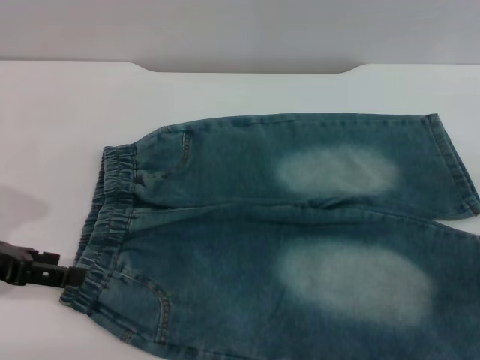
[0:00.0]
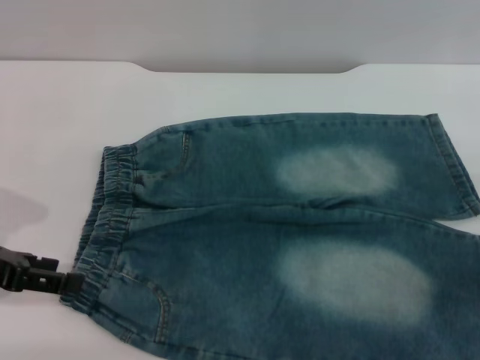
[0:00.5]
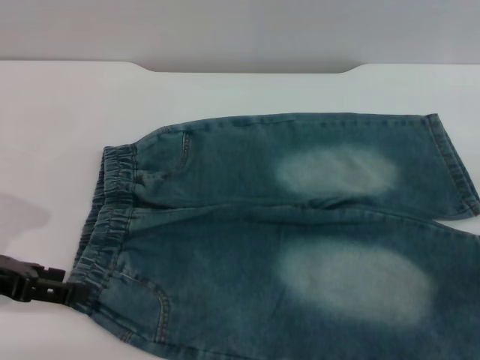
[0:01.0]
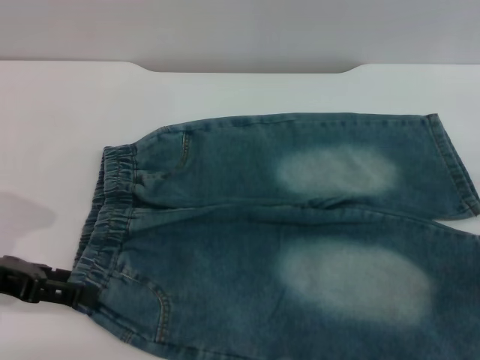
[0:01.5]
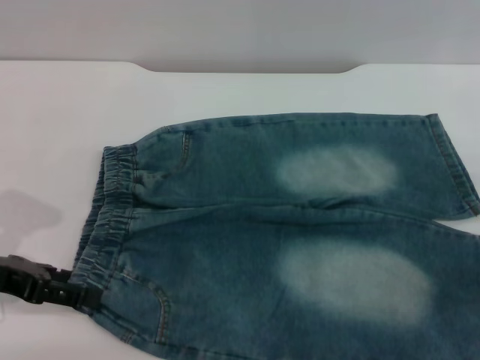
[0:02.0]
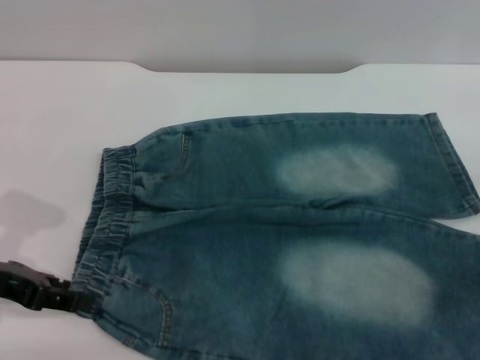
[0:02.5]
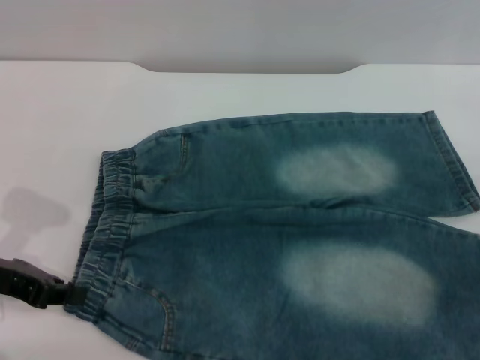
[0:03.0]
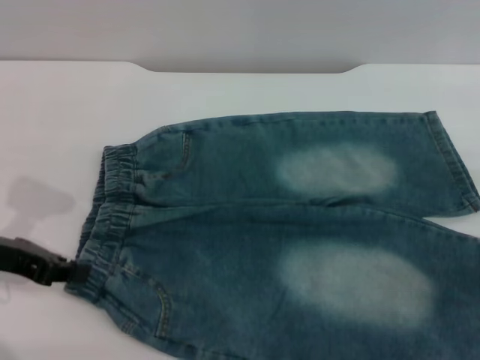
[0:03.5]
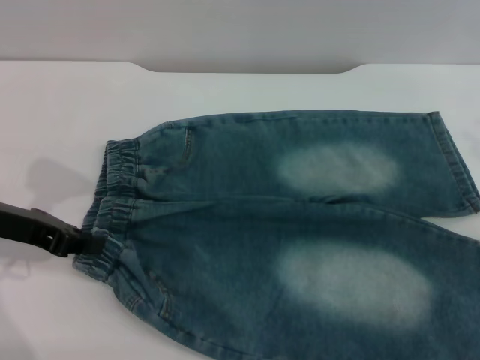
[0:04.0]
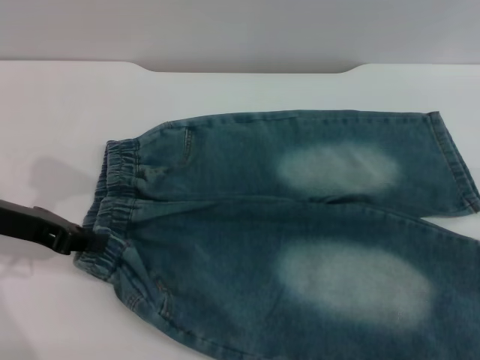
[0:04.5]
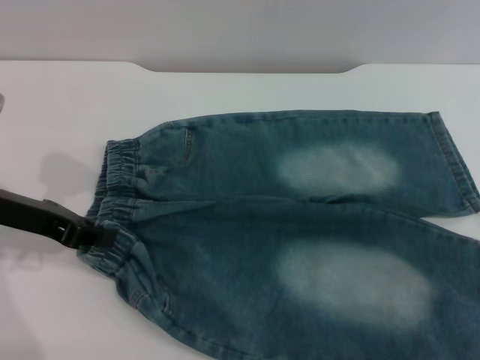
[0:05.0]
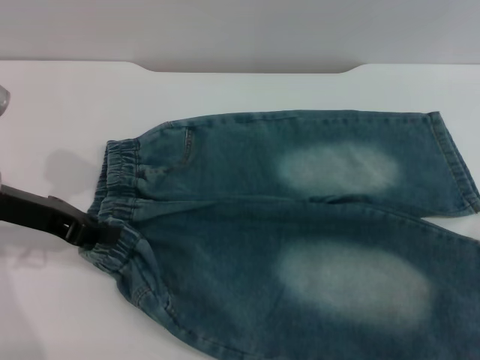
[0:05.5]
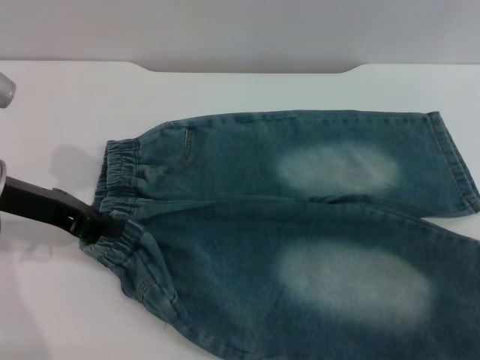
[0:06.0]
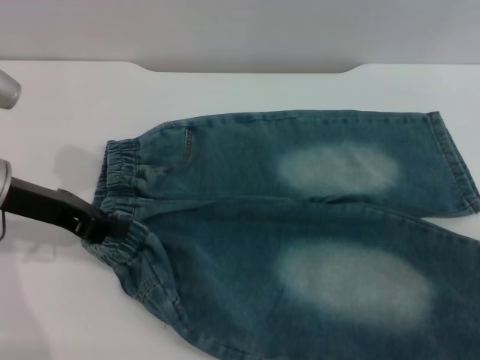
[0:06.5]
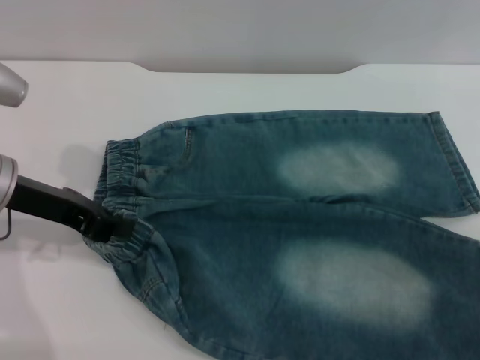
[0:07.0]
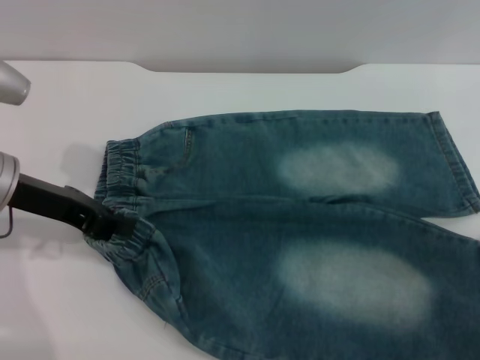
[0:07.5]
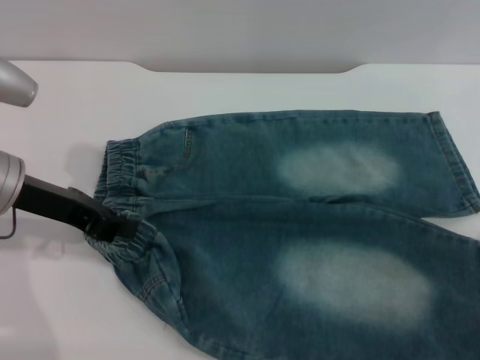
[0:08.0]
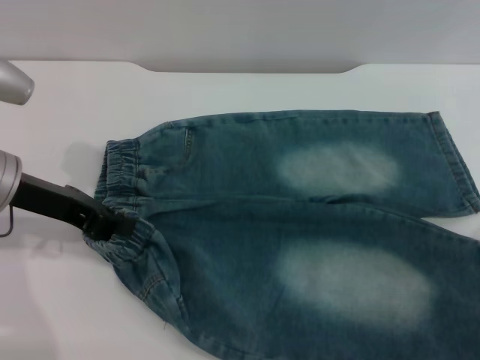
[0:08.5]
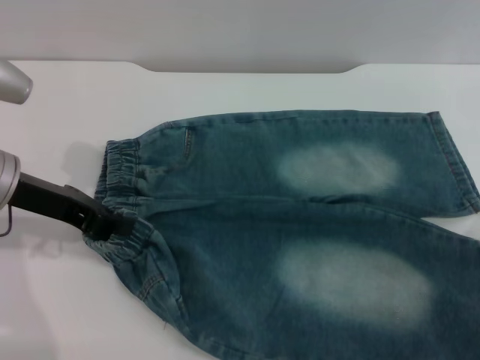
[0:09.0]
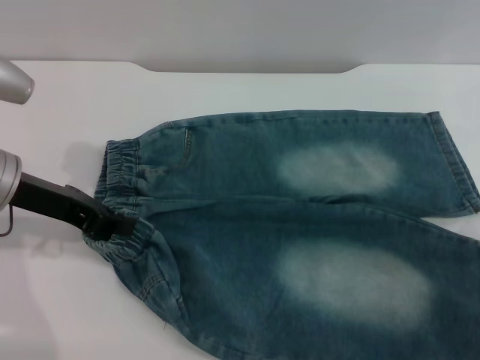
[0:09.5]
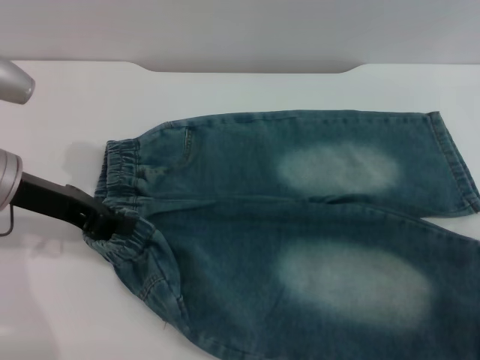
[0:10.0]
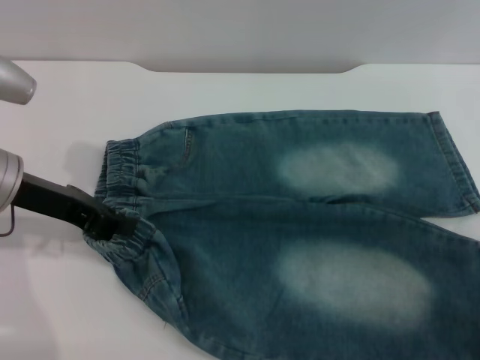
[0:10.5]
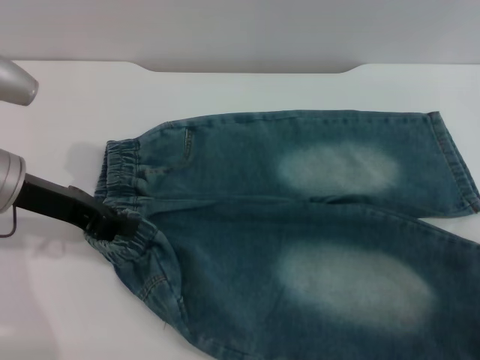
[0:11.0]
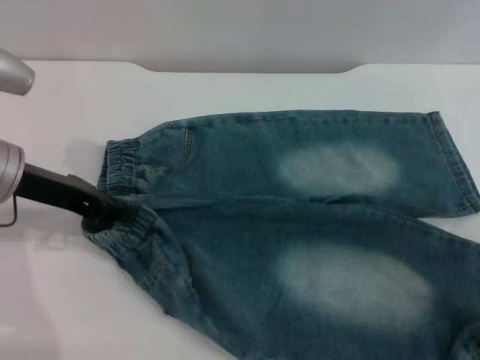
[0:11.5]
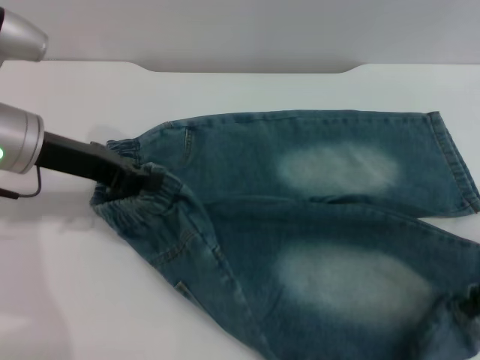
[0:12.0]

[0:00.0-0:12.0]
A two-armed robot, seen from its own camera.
0:00.0 to 0:02.0: The grippers make only small movements.
0:02.0 to 0:04.0: The right gripper moves upward, approximately 10 cm; the left gripper moves roughly 5 cm, and closes up.
0:06.0 to 0:10.0: The grippers make only small movements.
0:10.0 to 0:12.0: The right gripper closes.

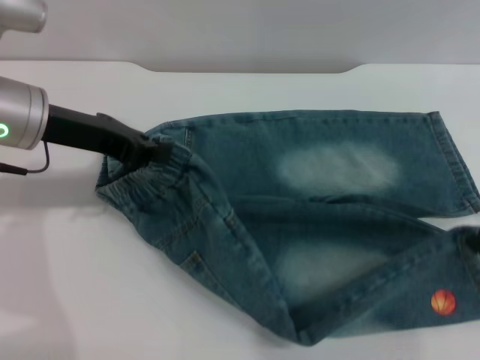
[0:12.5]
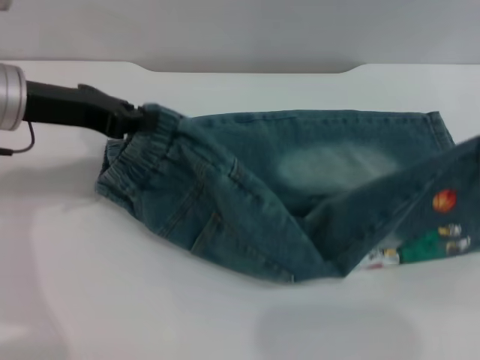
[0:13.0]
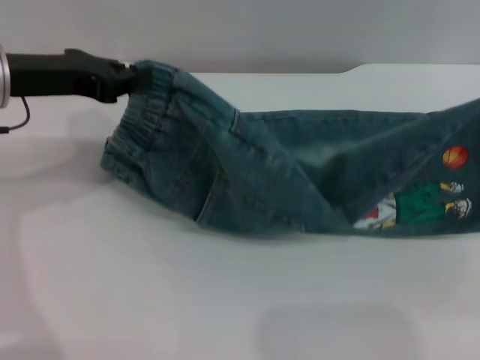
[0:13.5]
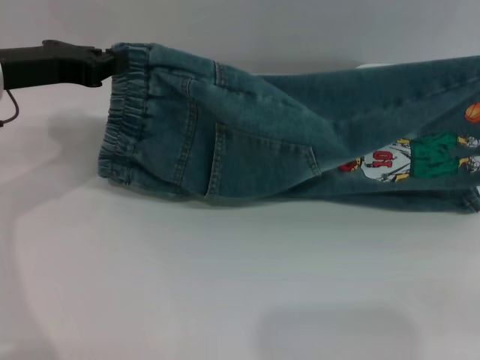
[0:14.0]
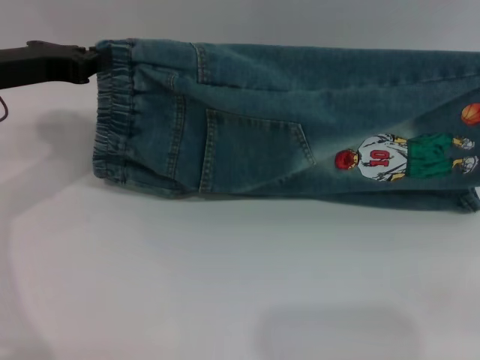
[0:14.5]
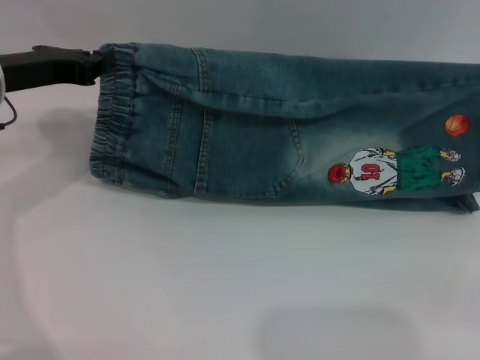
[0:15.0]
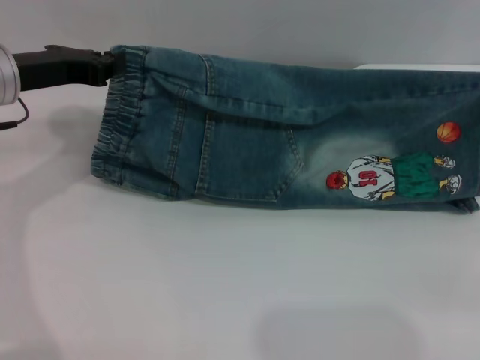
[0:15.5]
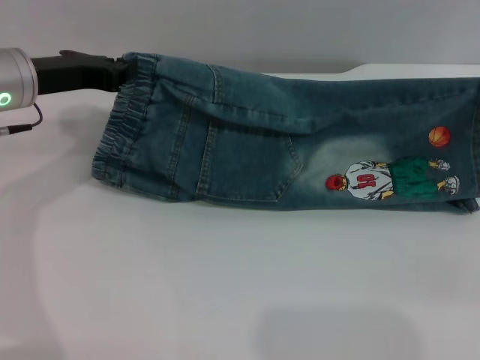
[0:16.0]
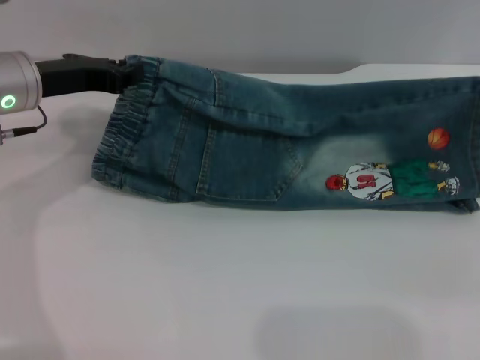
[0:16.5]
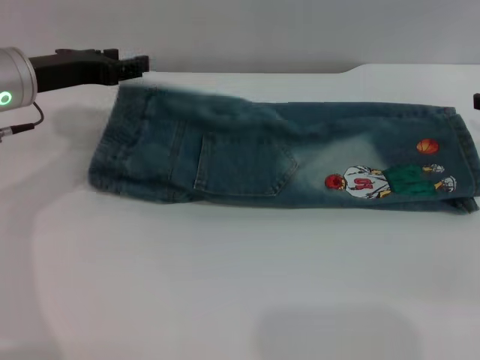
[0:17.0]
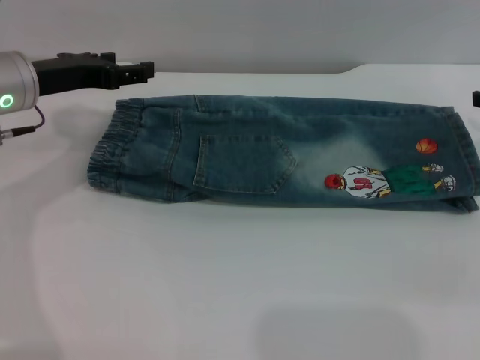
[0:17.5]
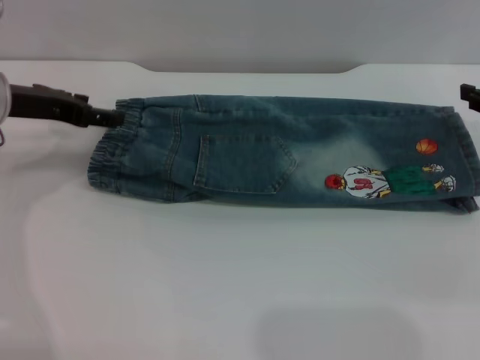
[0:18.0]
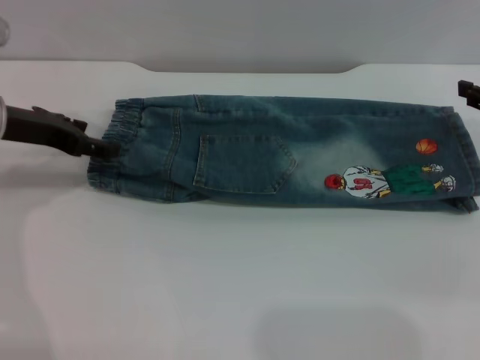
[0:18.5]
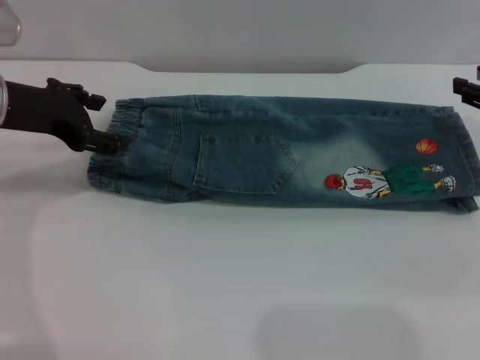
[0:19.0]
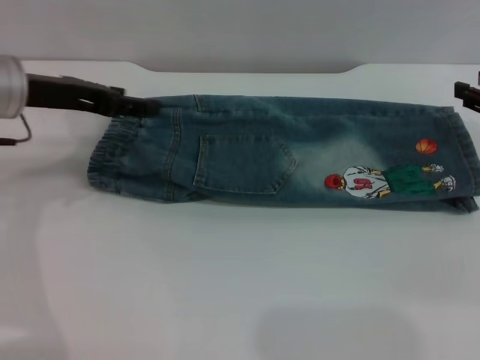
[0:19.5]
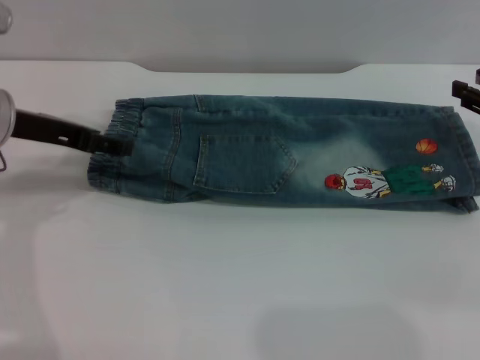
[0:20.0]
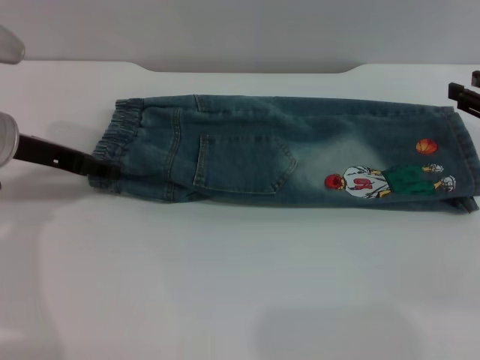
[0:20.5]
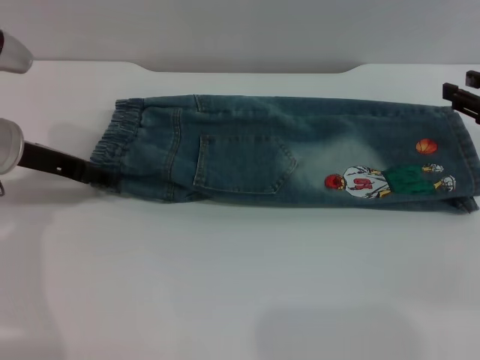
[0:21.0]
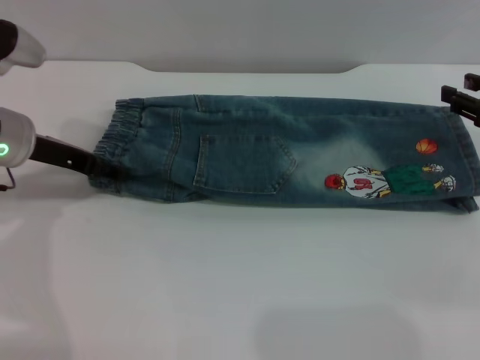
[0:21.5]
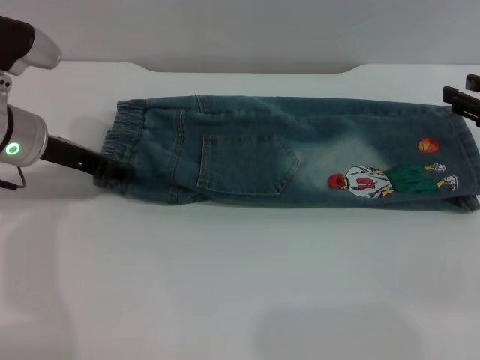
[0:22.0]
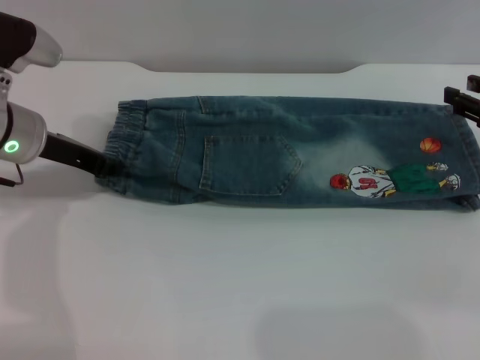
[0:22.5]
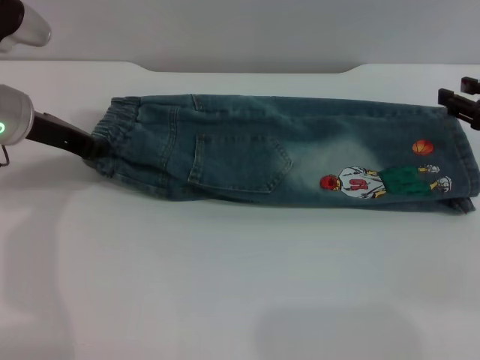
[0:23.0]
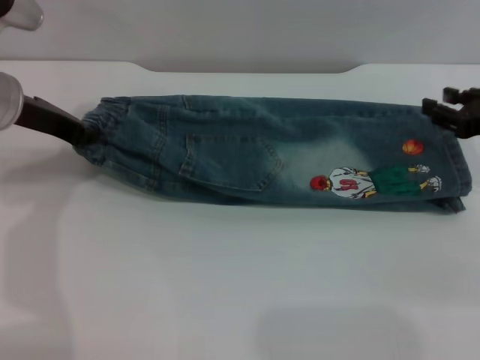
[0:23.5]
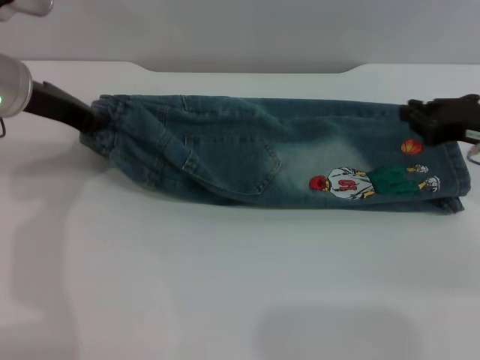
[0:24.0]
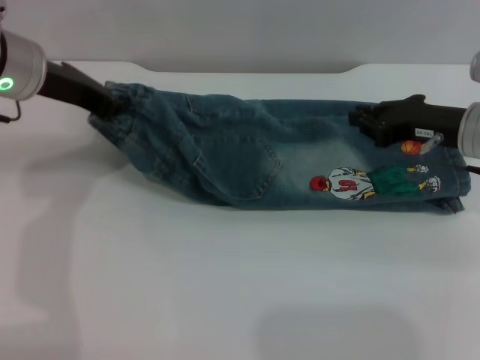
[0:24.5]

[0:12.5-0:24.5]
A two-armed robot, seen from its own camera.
Step, 0:12.5 to 0:17.0: Fold the bottom of the pants upward with both grippers.
0:12.5 to 0:14.5: The right gripper shifts some 5 cm to the right.
0:14.5 to 0:16.5: The right gripper travels downward and forward by some 10 cm.
0:16.5 to 0:18.5: The left gripper opens up. Meanwhile the right gripper opens up.
0:20.5 to 0:22.5: The left gripper closes up.
0:22.5 to 0:24.5: The right gripper moves to the left, approximately 10 cm, and closes; the left gripper moves upward, approximately 5 cm.

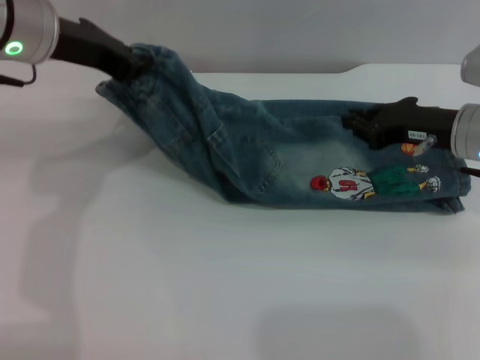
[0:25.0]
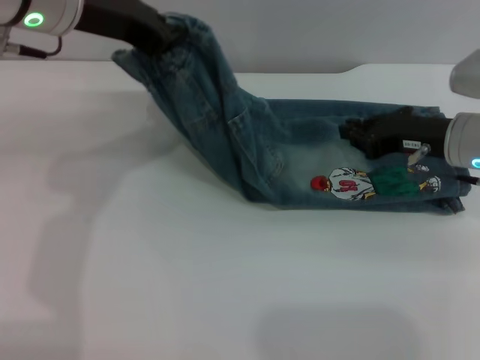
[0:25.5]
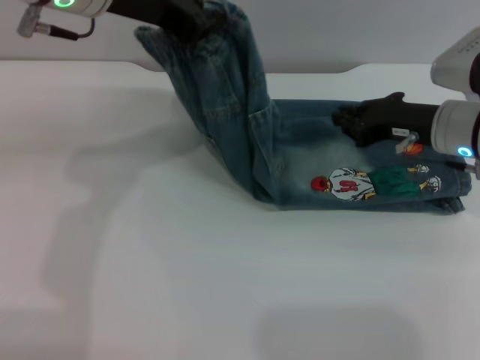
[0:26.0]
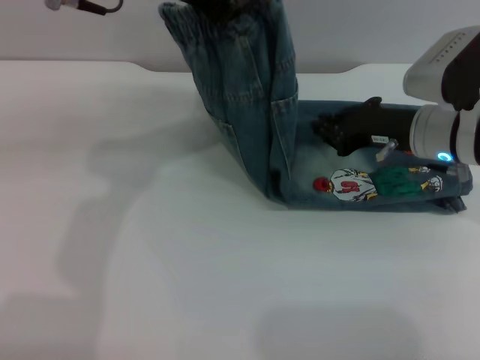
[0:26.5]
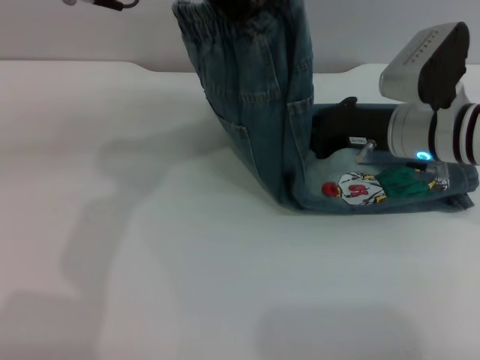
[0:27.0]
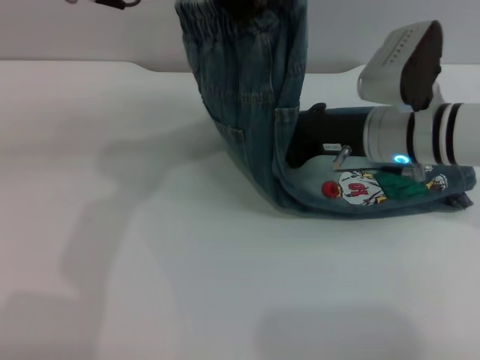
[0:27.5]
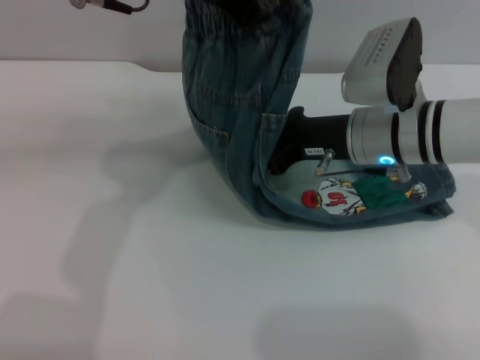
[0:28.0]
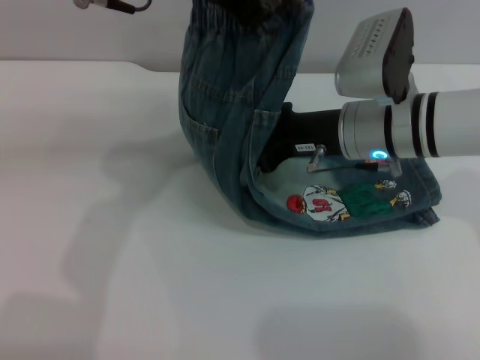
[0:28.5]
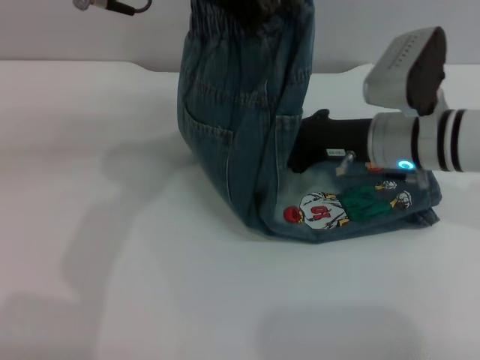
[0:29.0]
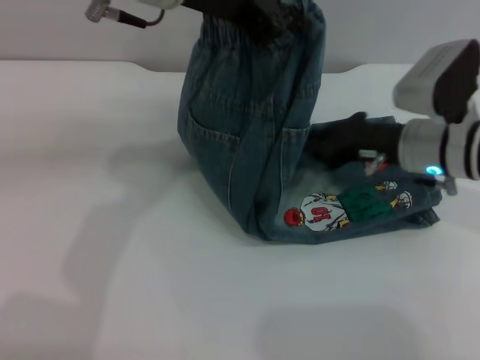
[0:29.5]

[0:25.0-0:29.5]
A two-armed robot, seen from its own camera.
0:25.0 to 0:27.0: The right gripper heads to the left, covering about 5 cm. The left gripper travels to the right and upward by some 10 cm.
